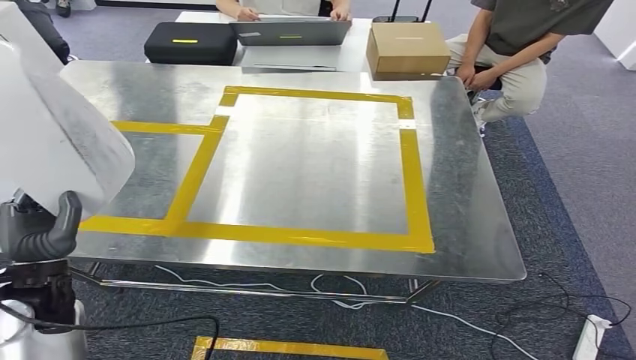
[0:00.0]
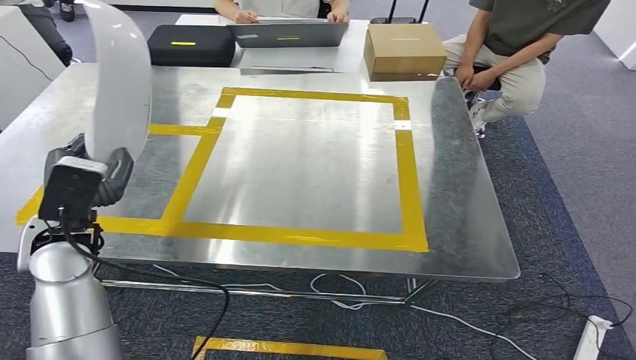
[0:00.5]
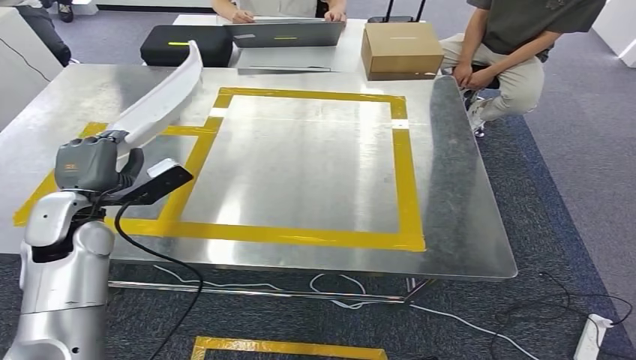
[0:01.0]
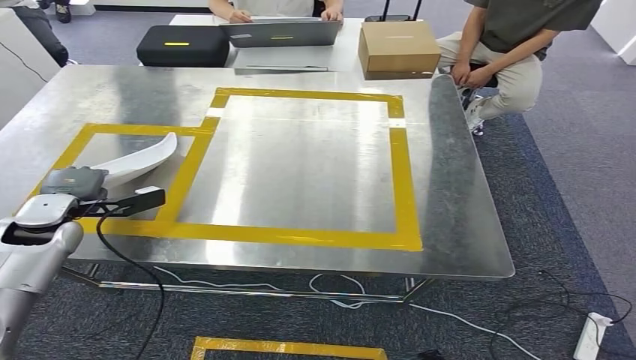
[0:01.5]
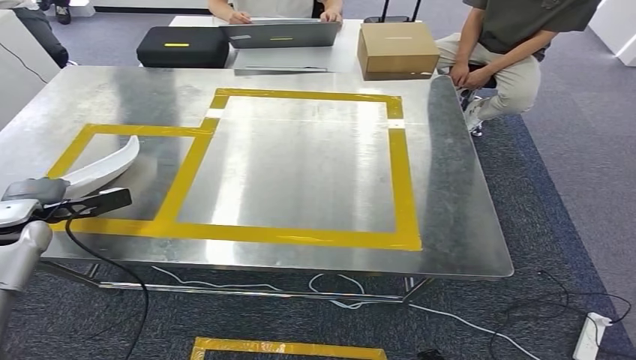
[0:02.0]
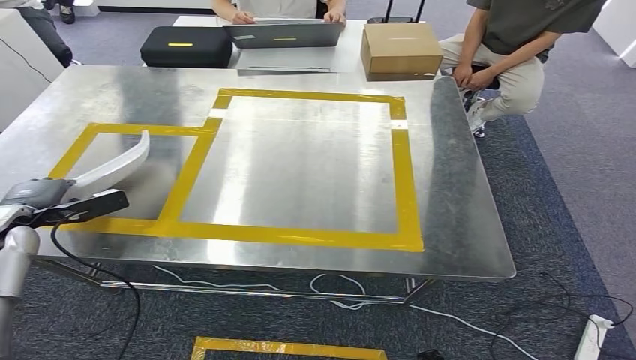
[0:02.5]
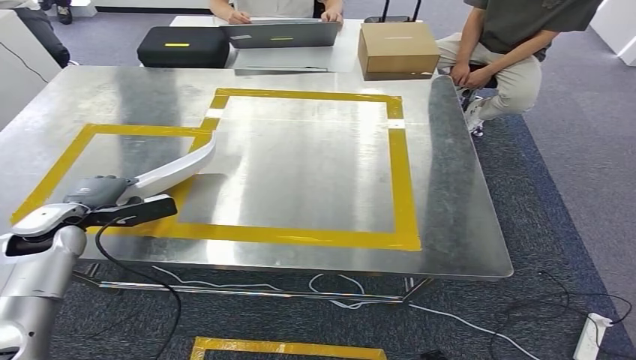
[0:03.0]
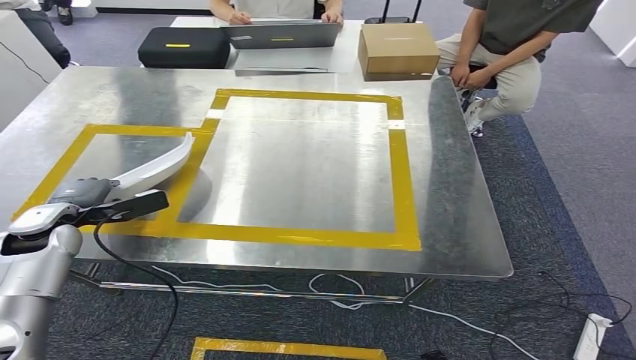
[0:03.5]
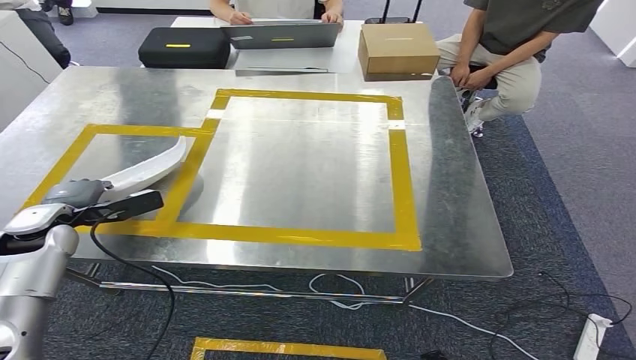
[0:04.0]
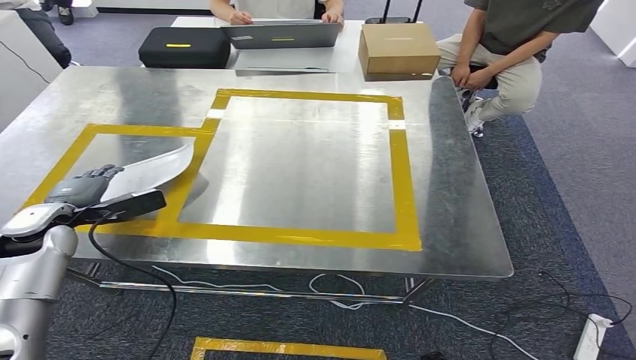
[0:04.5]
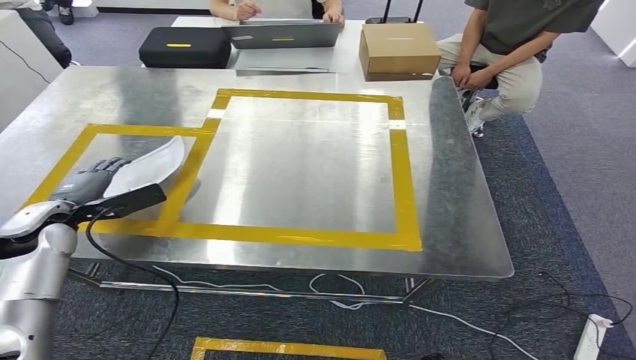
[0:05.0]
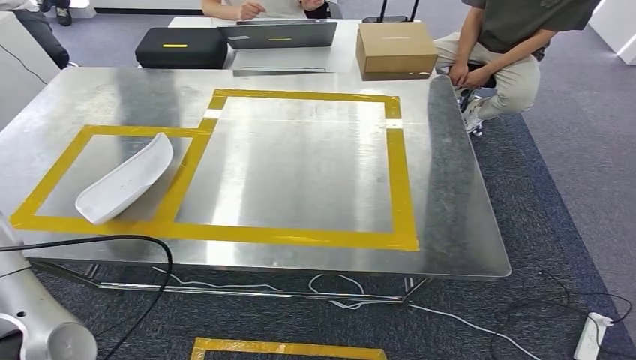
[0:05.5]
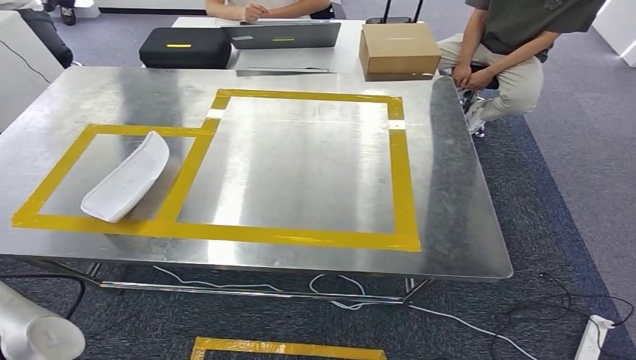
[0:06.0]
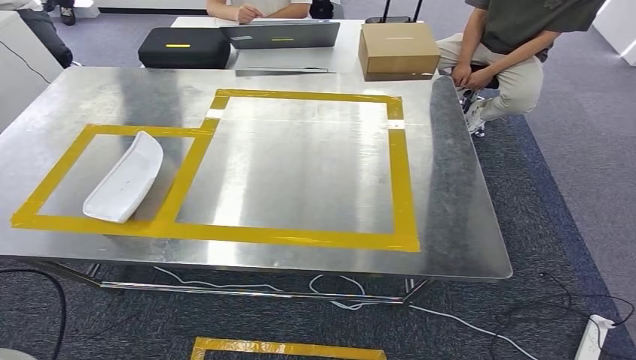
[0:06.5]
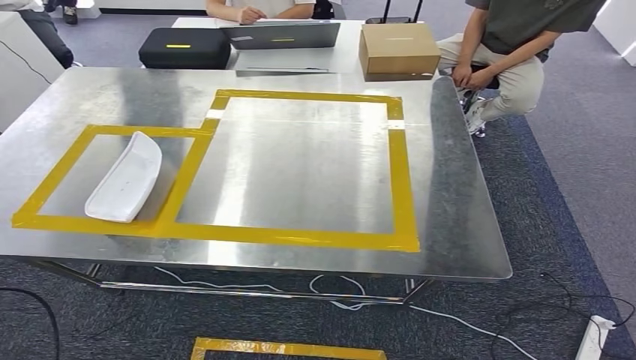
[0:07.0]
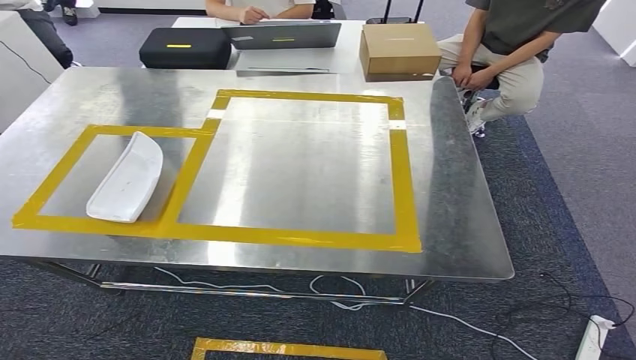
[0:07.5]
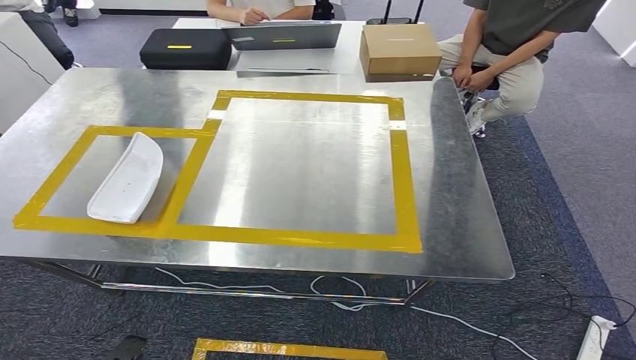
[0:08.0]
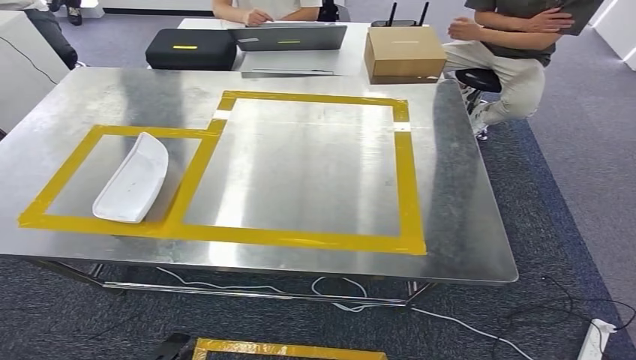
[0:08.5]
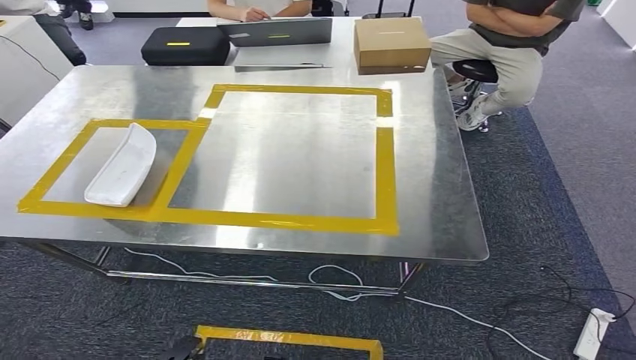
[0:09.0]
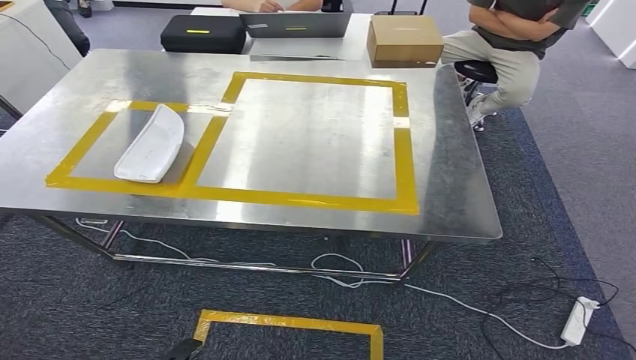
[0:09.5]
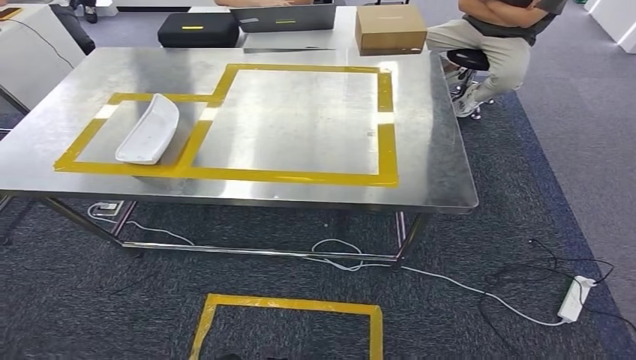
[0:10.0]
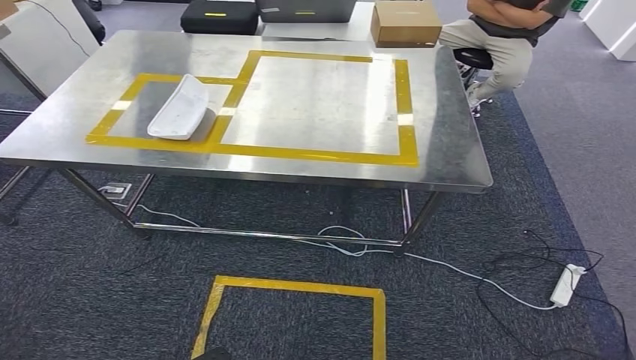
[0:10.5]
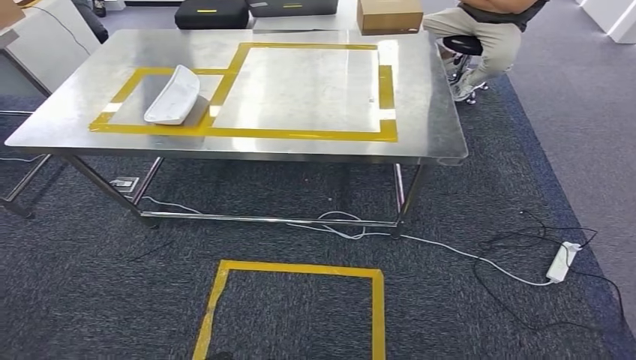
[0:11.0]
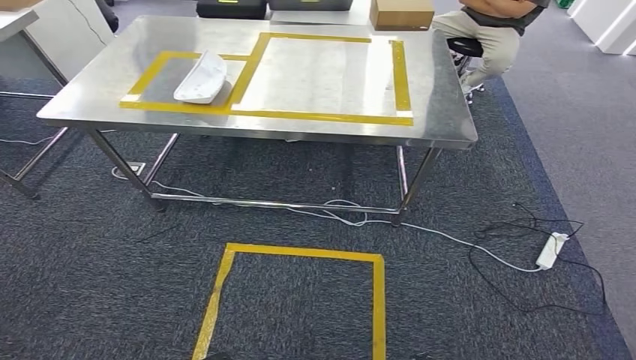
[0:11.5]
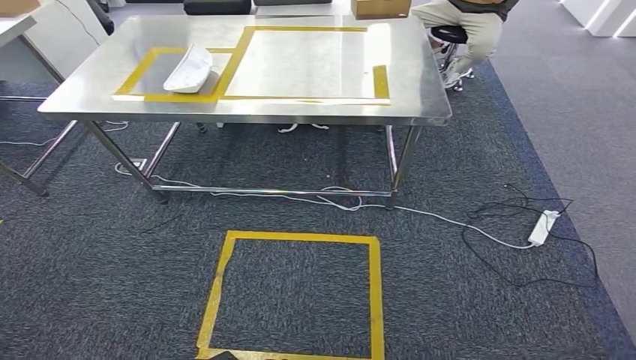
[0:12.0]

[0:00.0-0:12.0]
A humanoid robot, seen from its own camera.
Step, 0:00.0 to 0:07.0: Insert the small component into the corresponding slot on the workbench.
0:04.0 to 0:06.0: The left hand heads upward, backward and to the left, covering some 15 cm.
0:06.0 to 0:08.0: The left hand heads downward and backward, covering approximately 50 cm.

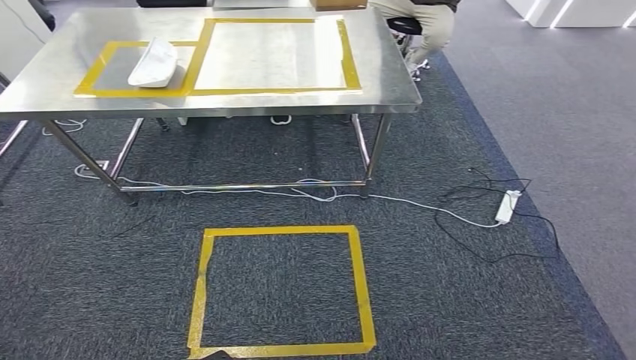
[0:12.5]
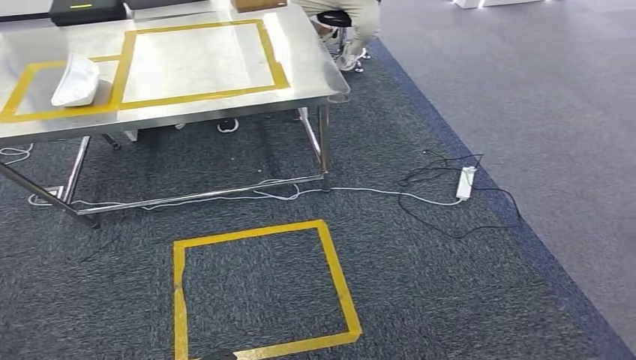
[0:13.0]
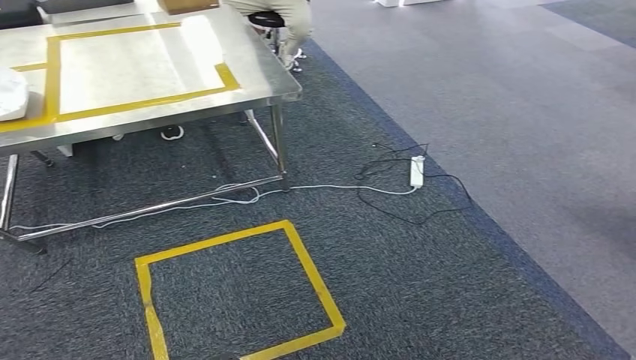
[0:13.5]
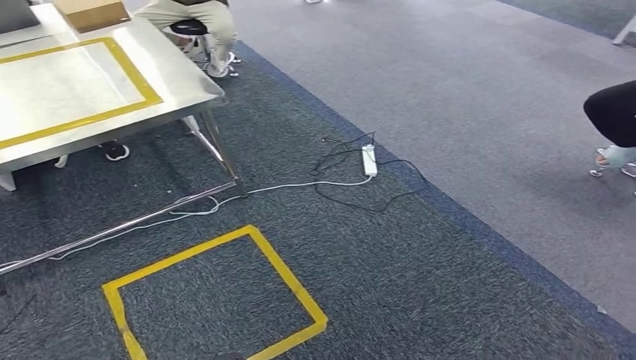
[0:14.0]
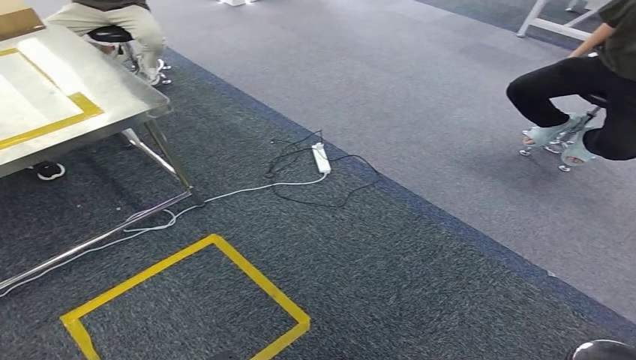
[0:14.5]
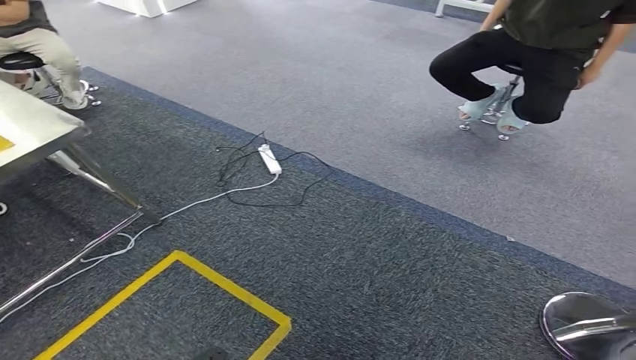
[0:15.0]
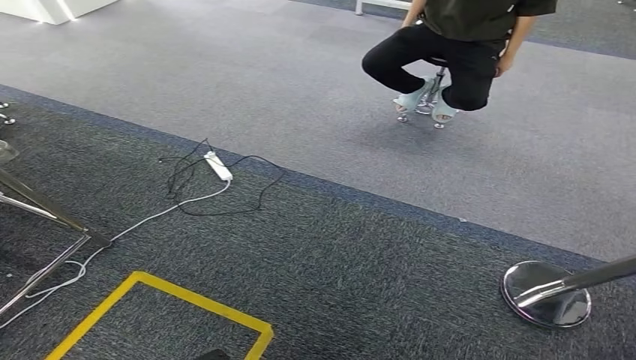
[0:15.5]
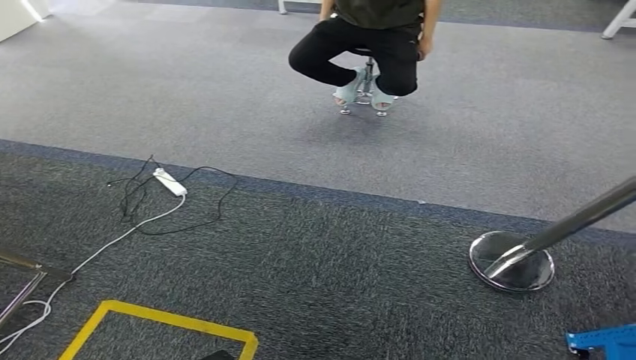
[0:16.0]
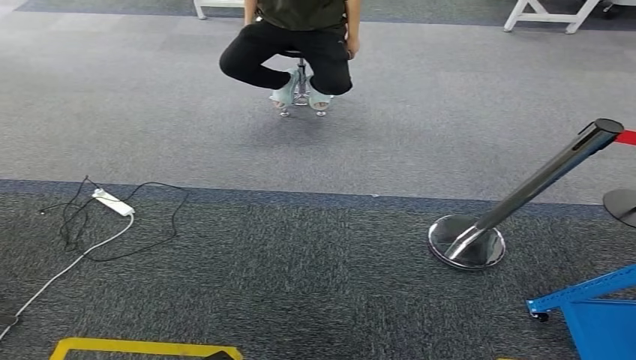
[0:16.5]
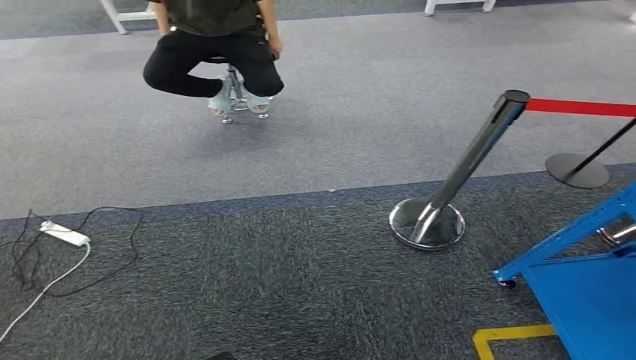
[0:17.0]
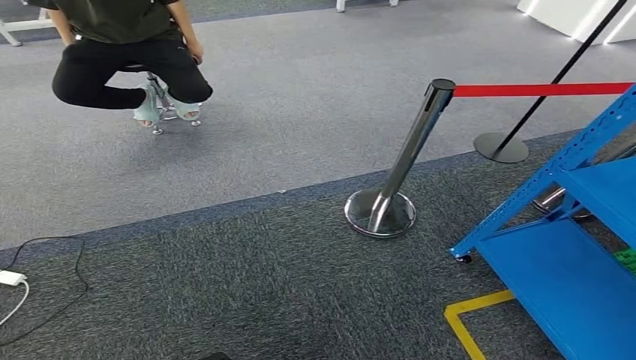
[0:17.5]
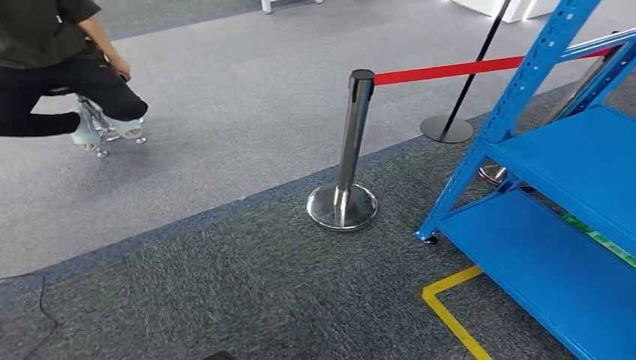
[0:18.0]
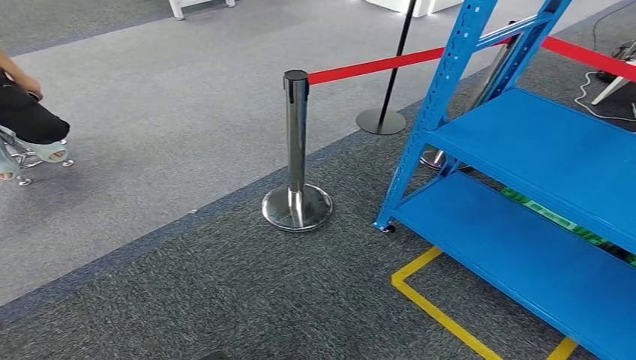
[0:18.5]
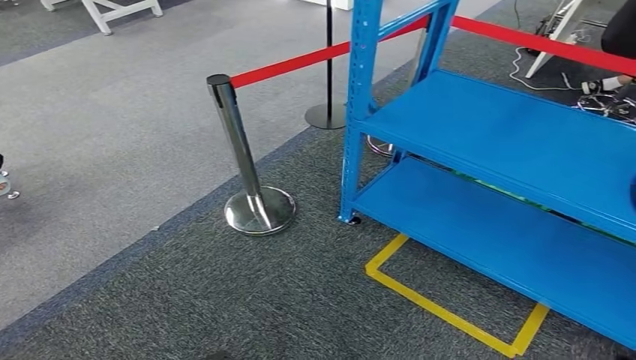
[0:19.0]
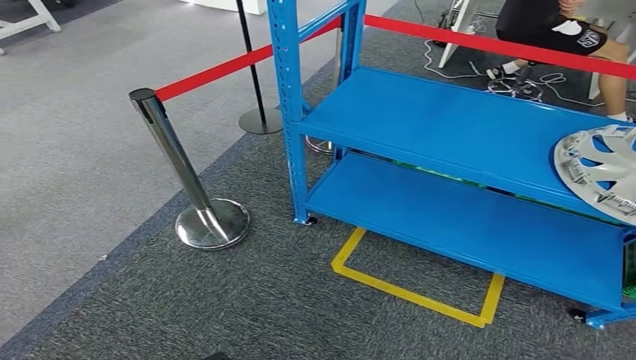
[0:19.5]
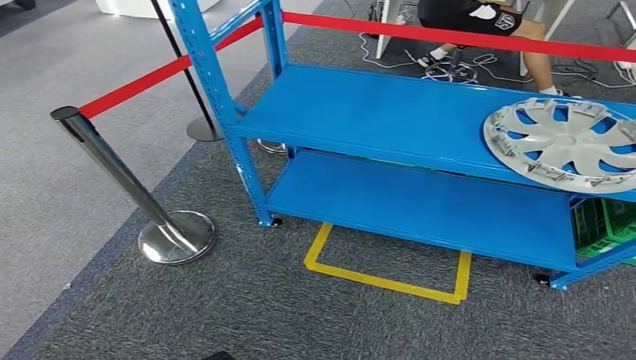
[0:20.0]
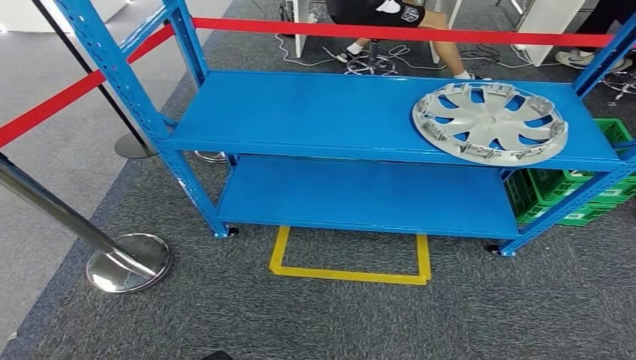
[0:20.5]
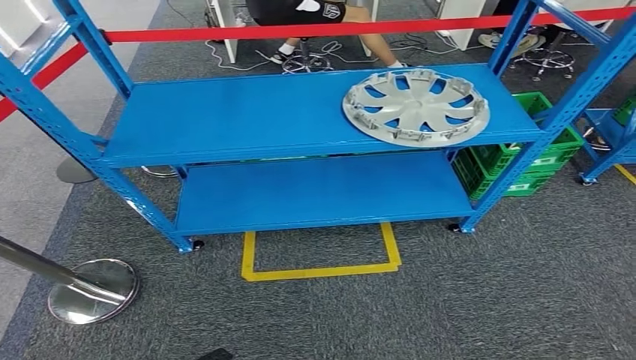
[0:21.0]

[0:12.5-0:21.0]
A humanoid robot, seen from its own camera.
Step, 0:12.5 to 0:21.0: Move to the initial position at the workbench.
